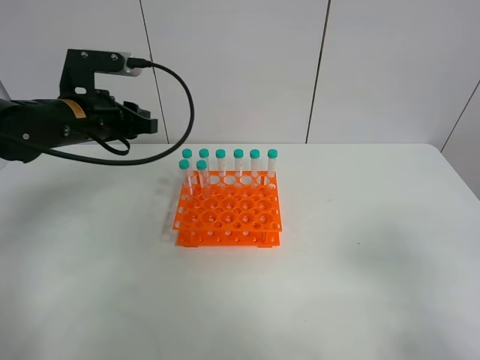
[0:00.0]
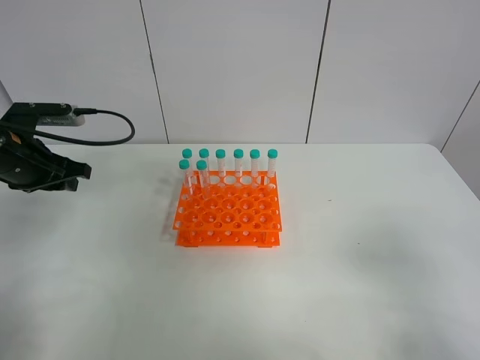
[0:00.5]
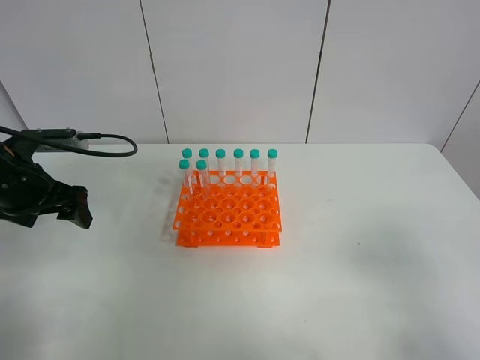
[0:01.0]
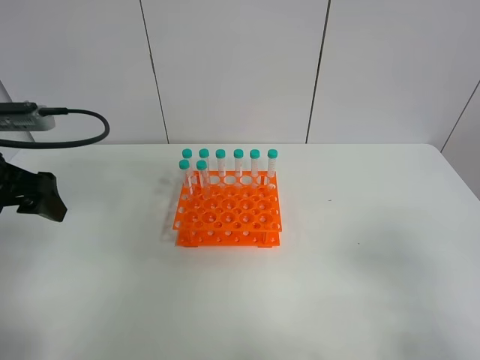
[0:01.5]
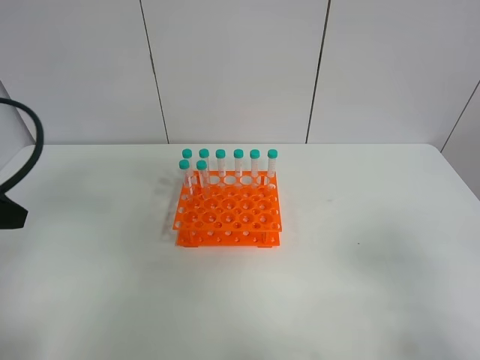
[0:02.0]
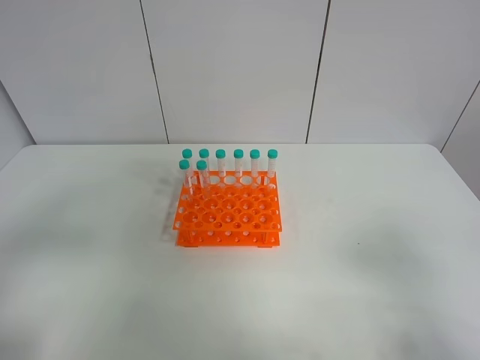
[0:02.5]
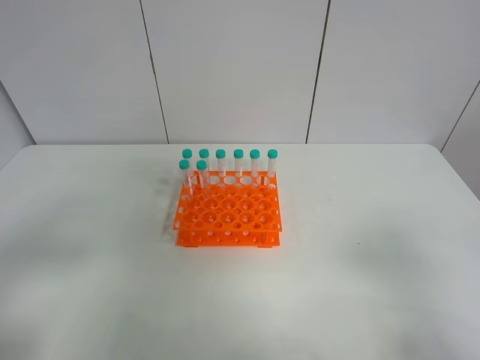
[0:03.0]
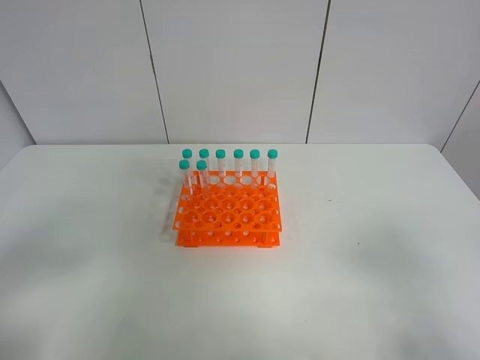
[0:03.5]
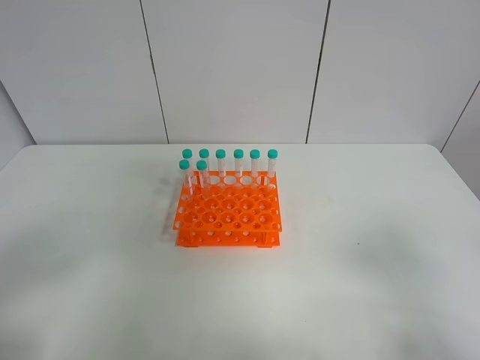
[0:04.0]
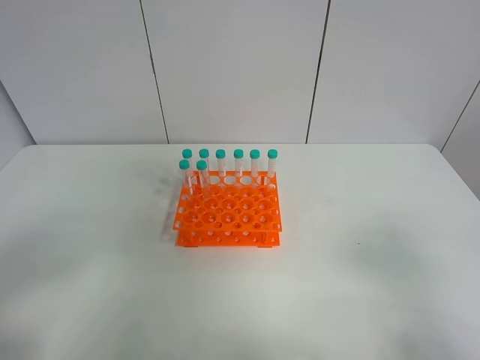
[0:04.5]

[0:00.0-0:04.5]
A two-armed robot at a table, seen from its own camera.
Task of the whole recording: Put the test tube on the table back onto the test tube rack.
0:00.0 to 0:02.0: The left gripper heads backward, covering about 20 cm, and opens up.
0:02.0 to 0:04.5: The left gripper shifts about 15 cm backward.
